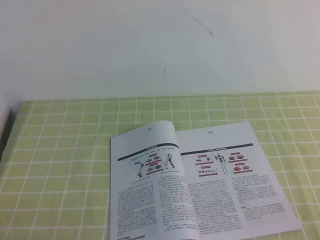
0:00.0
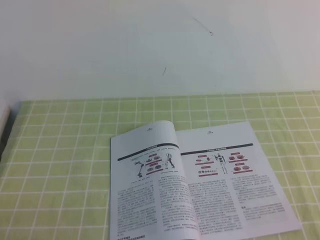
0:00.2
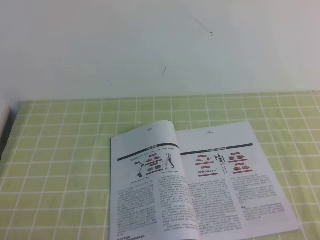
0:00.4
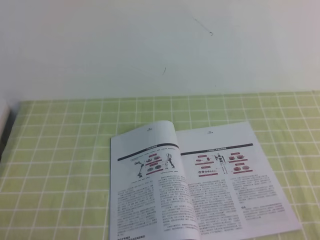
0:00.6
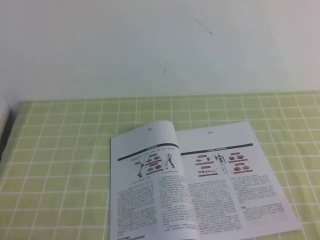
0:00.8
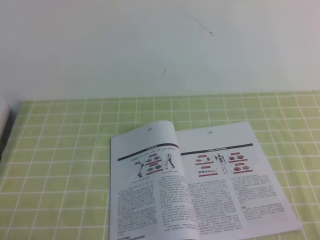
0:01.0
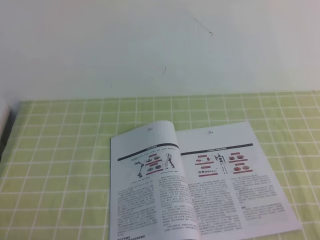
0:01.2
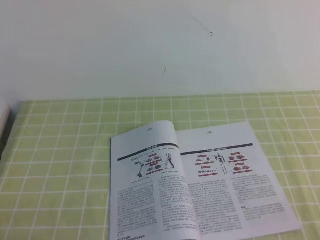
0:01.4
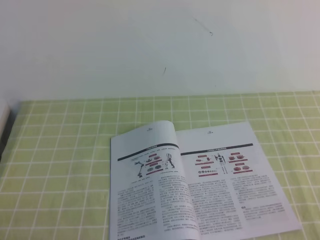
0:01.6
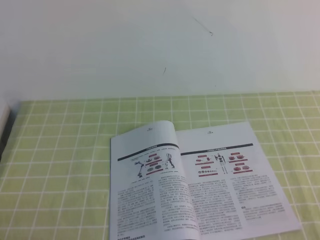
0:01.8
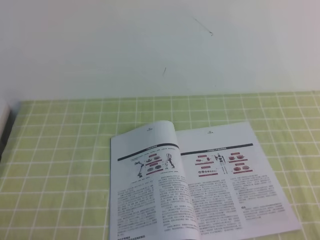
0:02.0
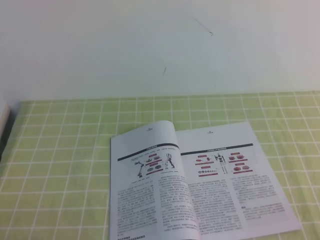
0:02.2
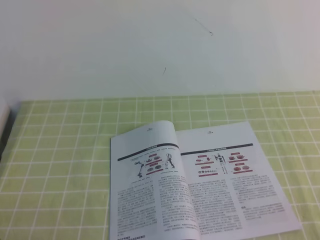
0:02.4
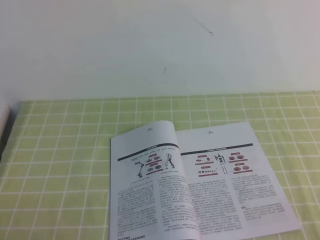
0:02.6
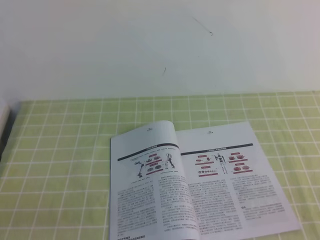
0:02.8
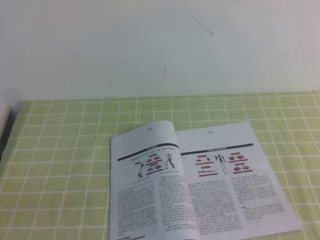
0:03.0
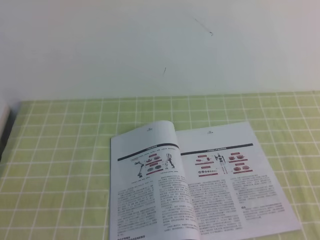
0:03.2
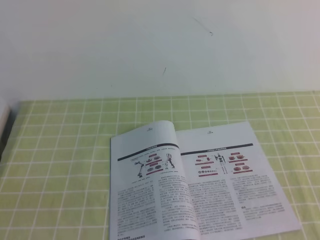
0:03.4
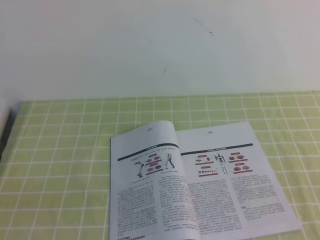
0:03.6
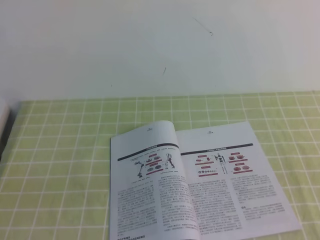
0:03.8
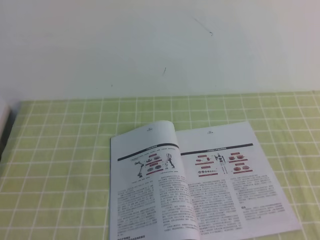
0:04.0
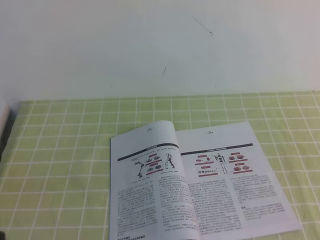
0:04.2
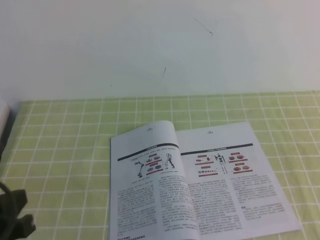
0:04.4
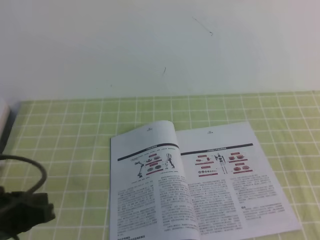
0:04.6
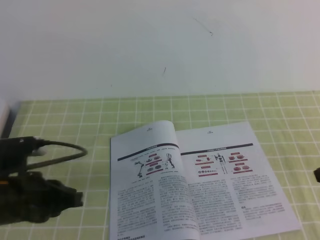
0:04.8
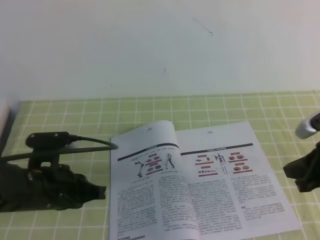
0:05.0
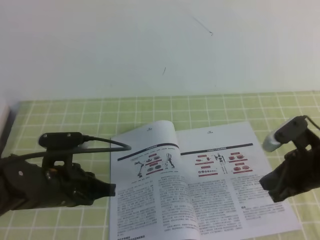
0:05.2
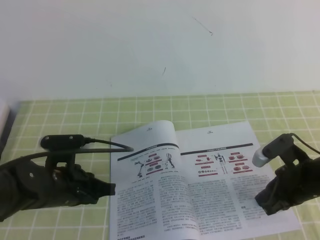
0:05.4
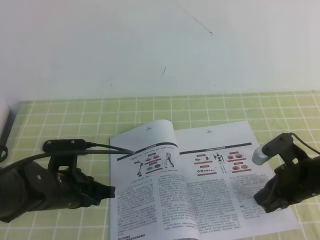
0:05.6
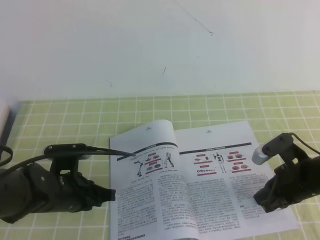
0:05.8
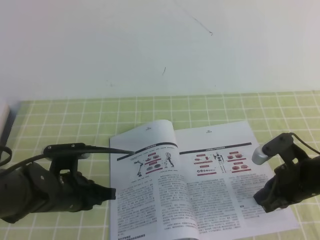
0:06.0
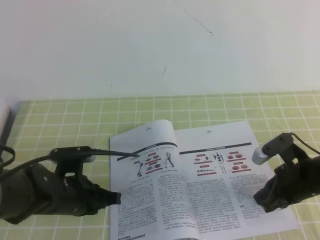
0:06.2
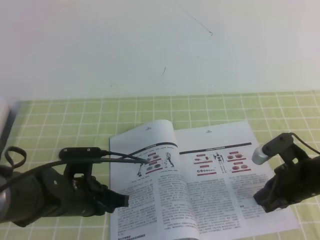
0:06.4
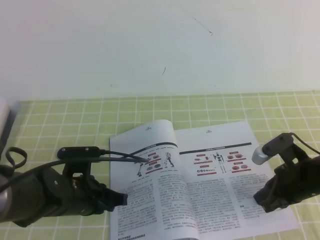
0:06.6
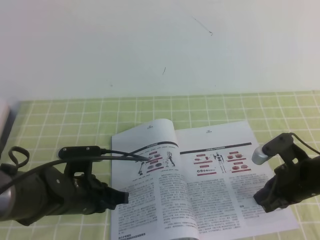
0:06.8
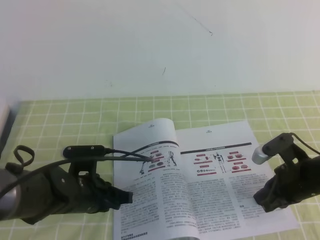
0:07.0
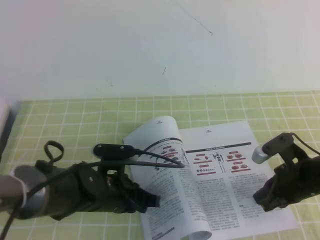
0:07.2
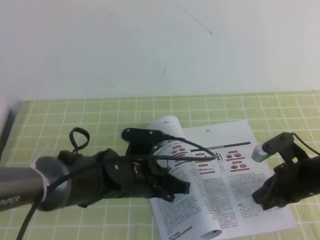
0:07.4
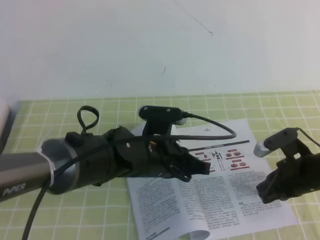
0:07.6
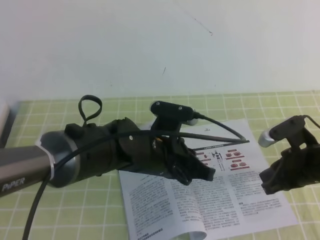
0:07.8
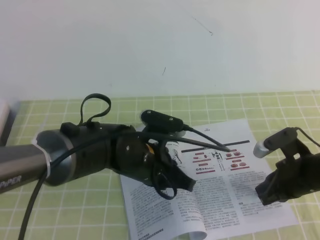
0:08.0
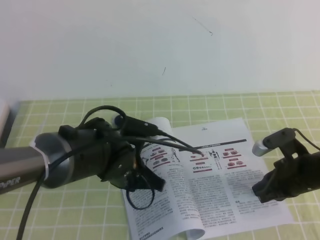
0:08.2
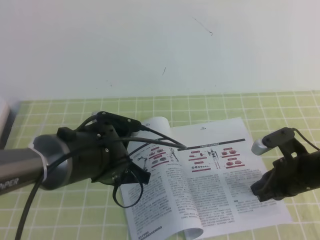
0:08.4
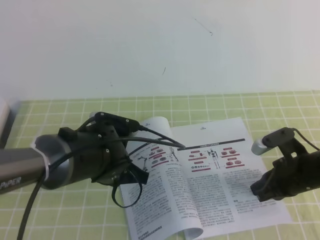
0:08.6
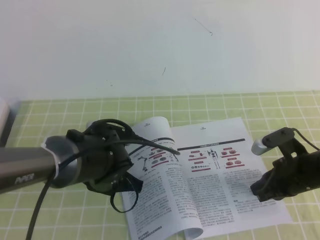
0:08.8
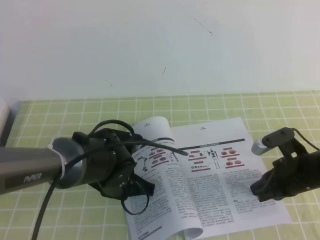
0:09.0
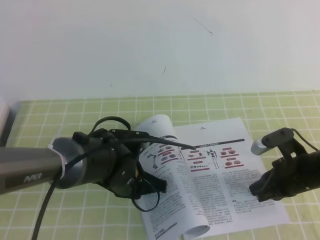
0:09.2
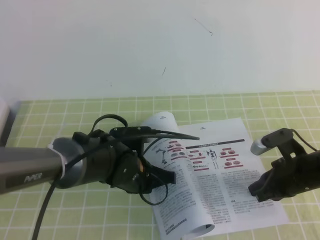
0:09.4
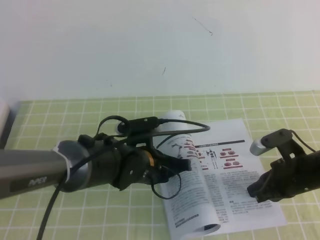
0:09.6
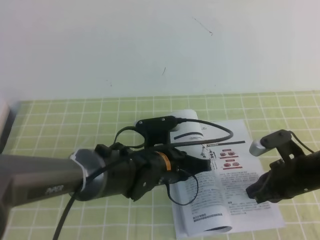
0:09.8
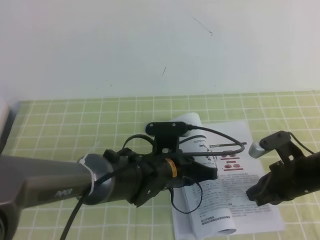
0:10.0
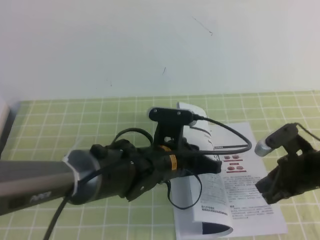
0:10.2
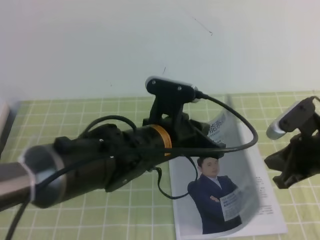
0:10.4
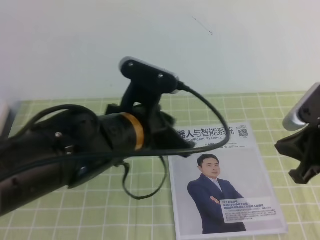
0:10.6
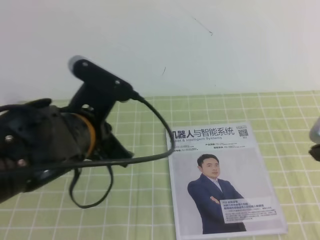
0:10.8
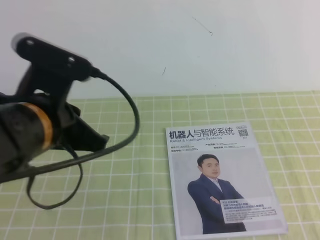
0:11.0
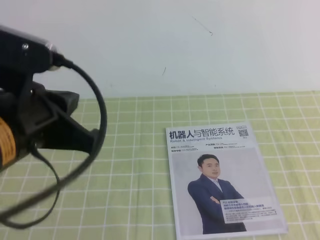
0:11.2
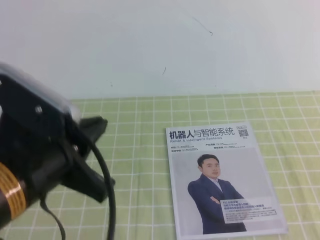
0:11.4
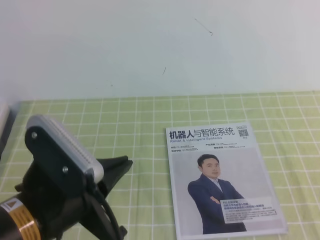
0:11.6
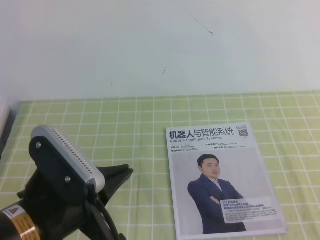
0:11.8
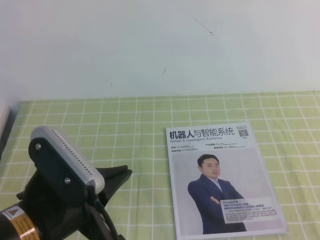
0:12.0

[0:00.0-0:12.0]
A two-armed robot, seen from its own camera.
Task of the whole recording: on the green tablecloth, hold the book with one hand and close it with the other.
0:00.0 to 0:01.6: The two grippers keep their place.
0:03.0 to 0:04.4: The left gripper heads forward, covering approximately 5 cm.
0:04.4 to 0:06.0: The right gripper heads downward, forward and to the left, covering roughly 25 cm; the left gripper moves forward, downward and to the right, some 20 cm.
0:06.0 to 0:07.6: The left gripper goes roughly 15 cm to the right.
0:07.6 to 0:09.0: The left gripper moves some 5 cm.
0:09.0 to 0:10.4: The right gripper moves upward, roughly 10 cm; the left gripper goes roughly 10 cm upward and to the right.
0:10.4 to 0:12.0: The right gripper heads backward, covering roughly 25 cm. The left gripper travels backward and to the left by about 20 cm.

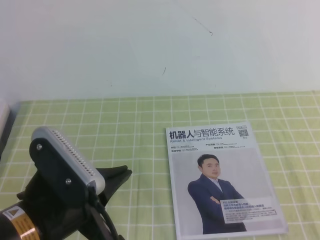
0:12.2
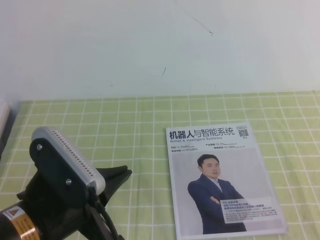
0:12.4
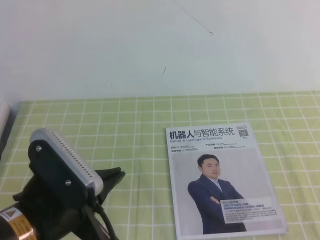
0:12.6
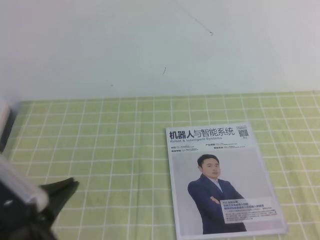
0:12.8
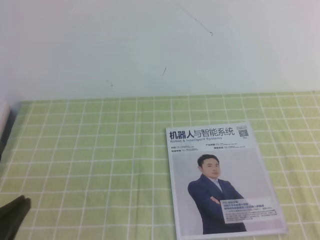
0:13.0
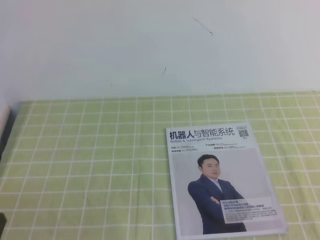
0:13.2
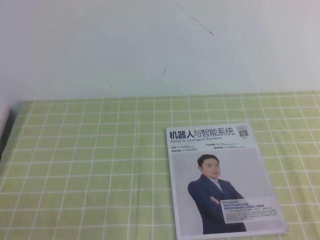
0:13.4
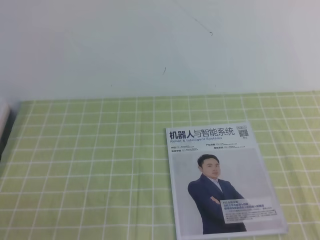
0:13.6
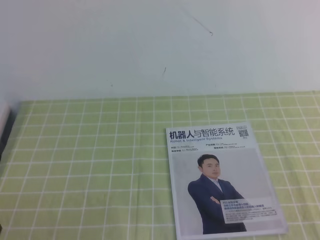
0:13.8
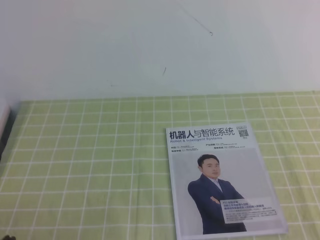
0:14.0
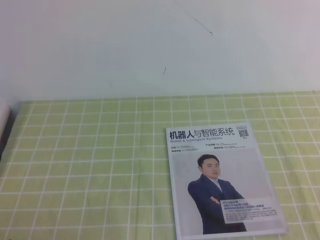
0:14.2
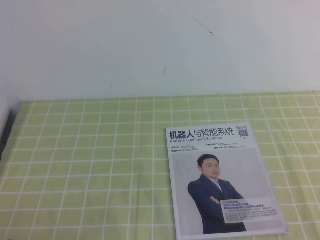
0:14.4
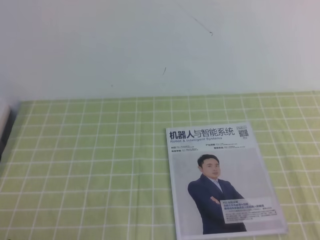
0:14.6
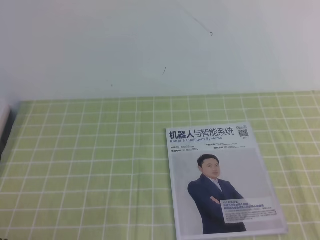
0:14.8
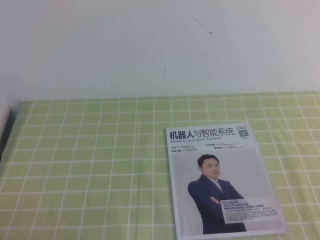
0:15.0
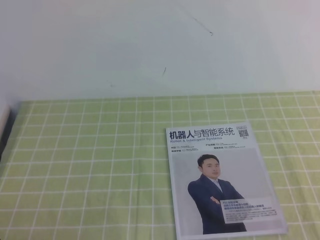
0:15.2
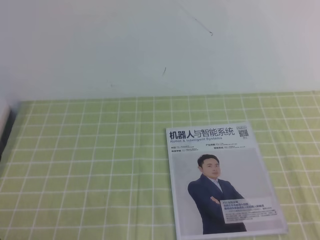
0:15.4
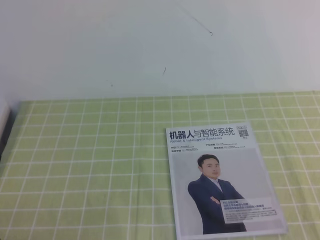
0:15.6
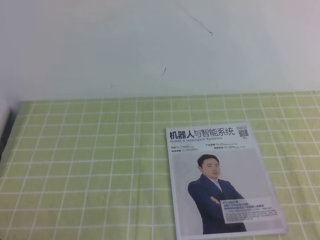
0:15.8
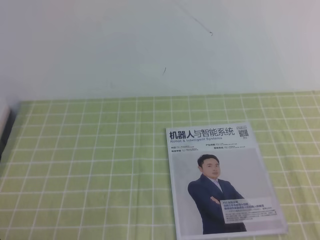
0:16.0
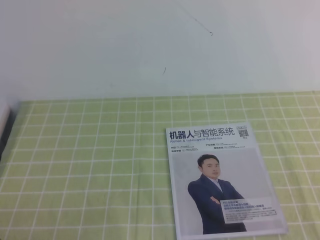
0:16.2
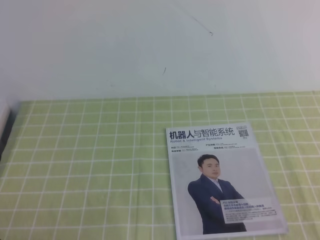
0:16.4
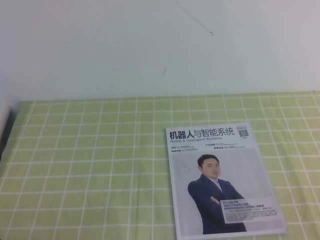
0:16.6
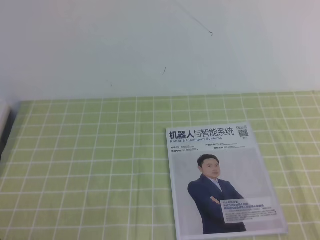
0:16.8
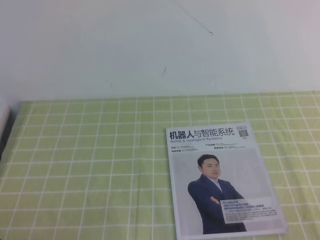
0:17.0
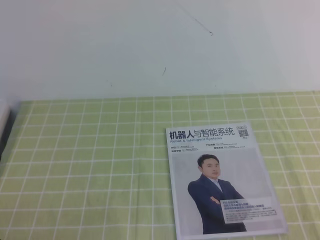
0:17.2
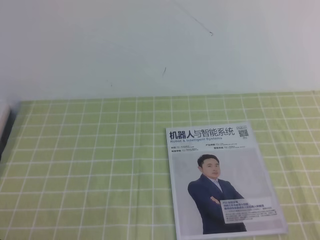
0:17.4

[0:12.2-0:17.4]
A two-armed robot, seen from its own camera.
Task of the whole recording: on the green tablecloth, hold the book with one hand and close it with the other.
Step, 0:12.2 to 0:17.4: Close the open book.
0:12.2 to 0:14.0: The left gripper shifts approximately 15 cm to the left, downward and backward.
